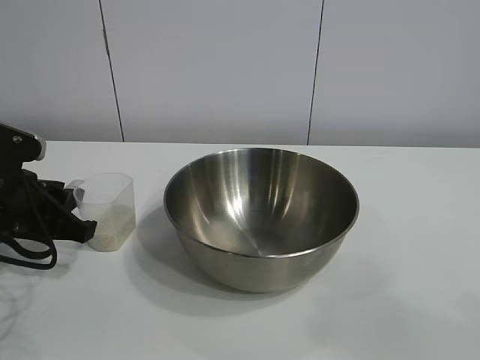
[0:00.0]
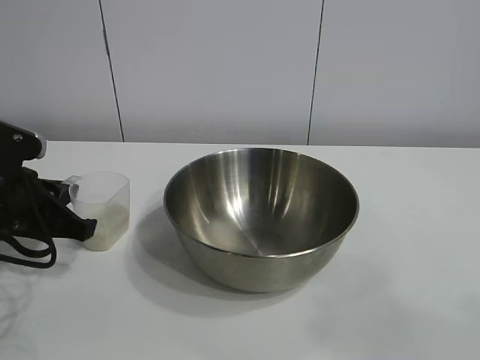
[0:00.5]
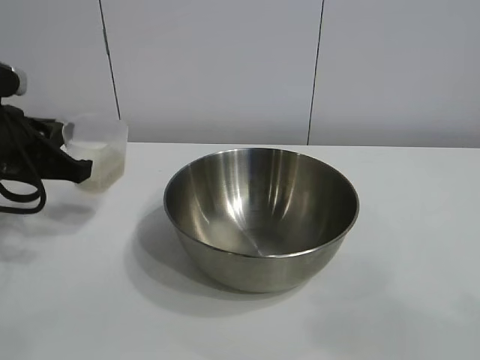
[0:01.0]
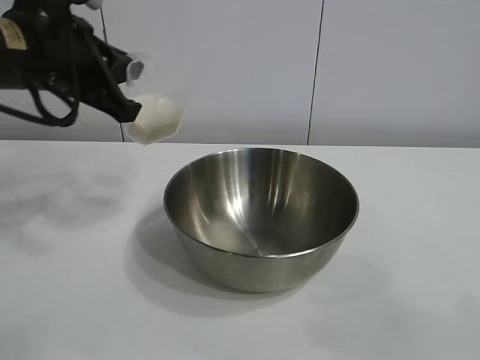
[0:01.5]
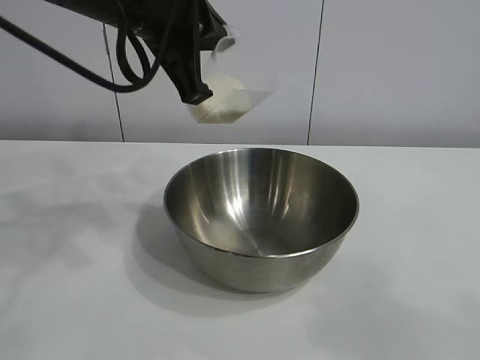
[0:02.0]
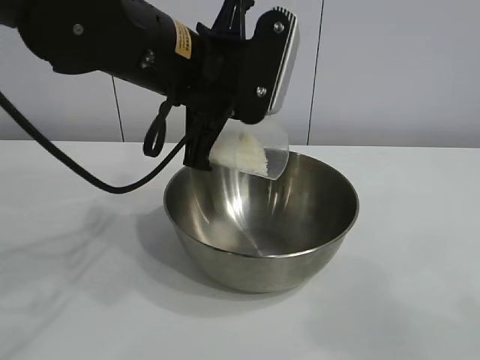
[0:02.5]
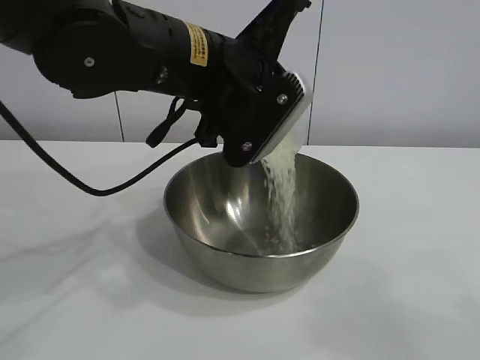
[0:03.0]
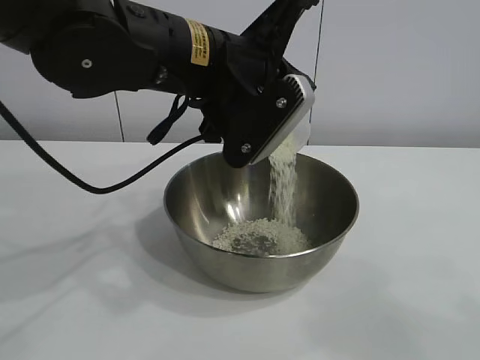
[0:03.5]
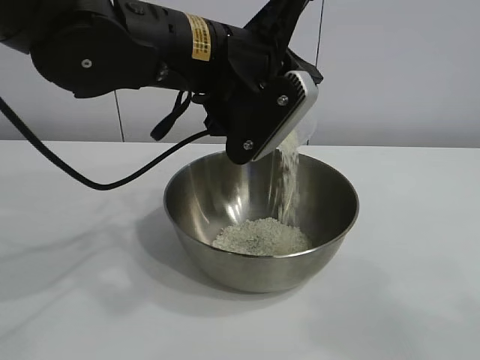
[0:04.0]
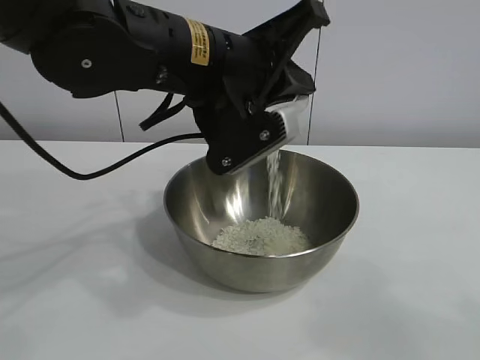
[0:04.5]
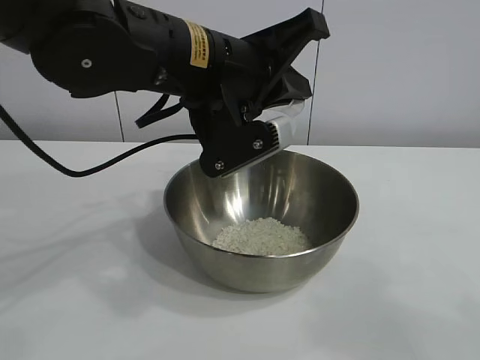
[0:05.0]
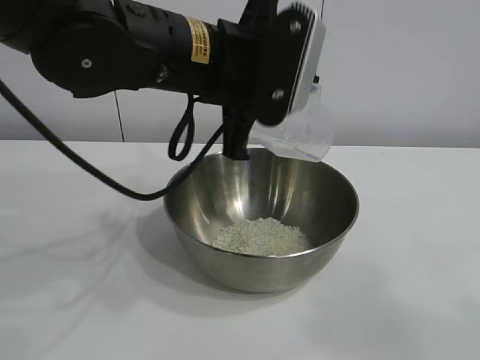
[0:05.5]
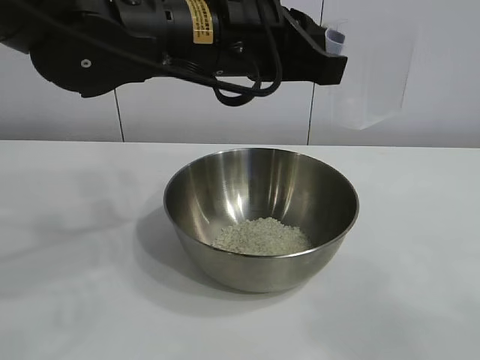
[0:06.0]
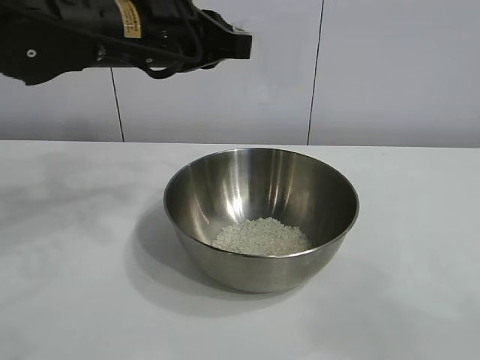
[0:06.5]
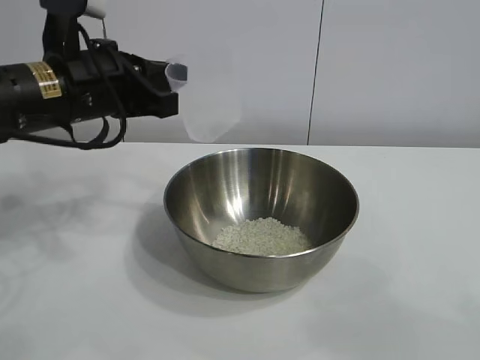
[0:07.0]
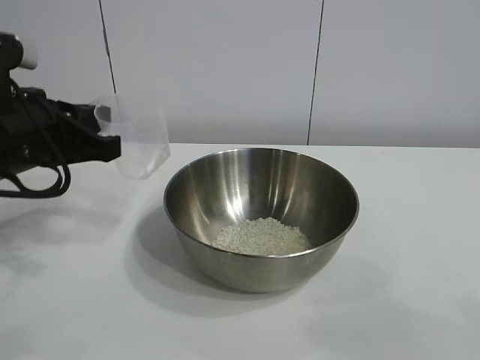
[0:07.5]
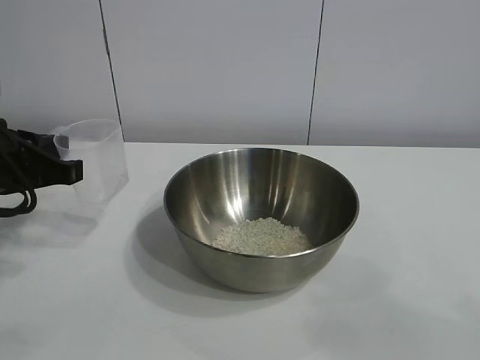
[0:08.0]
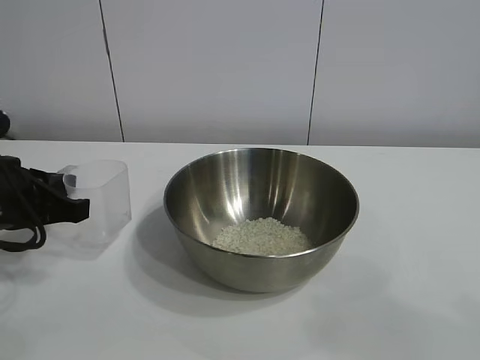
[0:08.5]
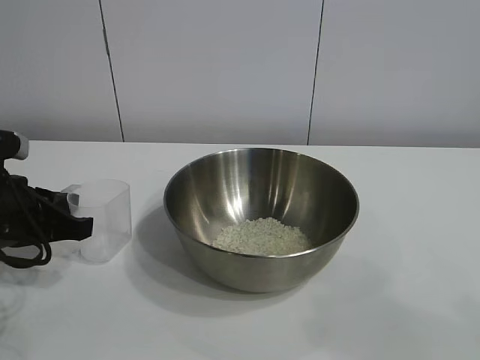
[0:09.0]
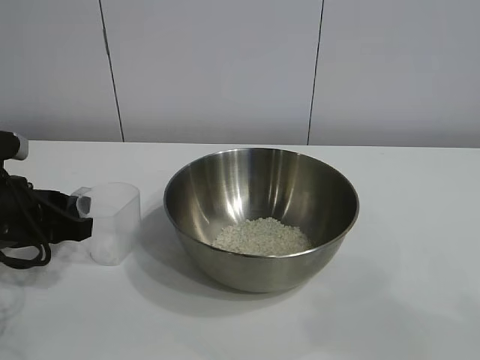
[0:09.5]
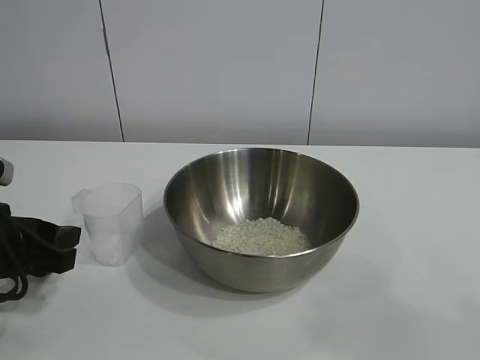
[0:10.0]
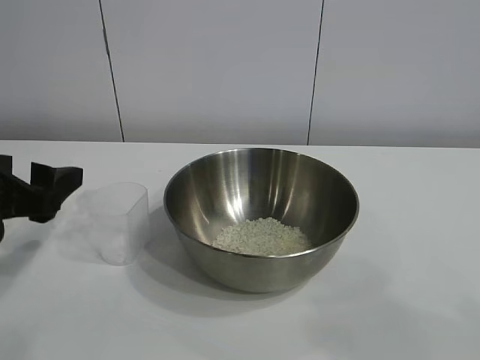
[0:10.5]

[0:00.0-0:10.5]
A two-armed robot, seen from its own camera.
Task of the whole recording: the right gripper grasp the rice container and place it in the center of the table, the left gripper grasp the rice scoop and pour the rice into the rice container.
Step, 0:01.0 to 0:05.0: Pour the rice from the cup into the bowl with the left gripper.
Step, 0:05.5 to 0:09.5: Place the cup on the table with the left gripper.

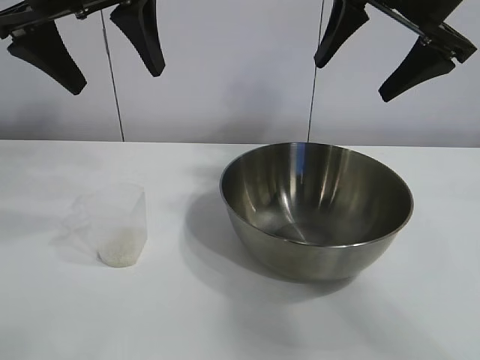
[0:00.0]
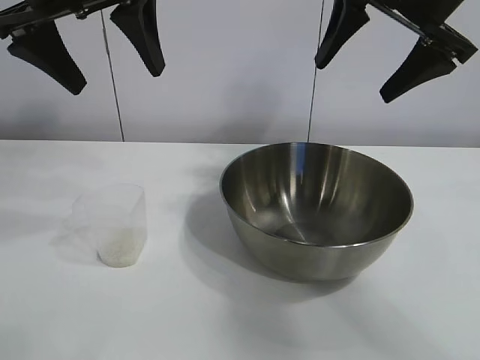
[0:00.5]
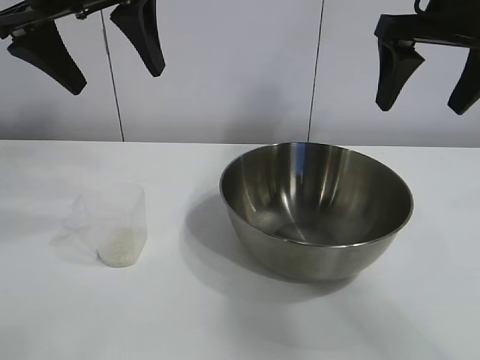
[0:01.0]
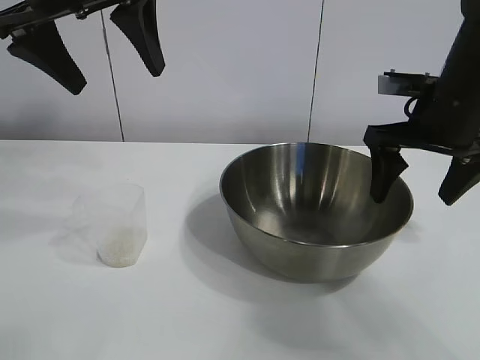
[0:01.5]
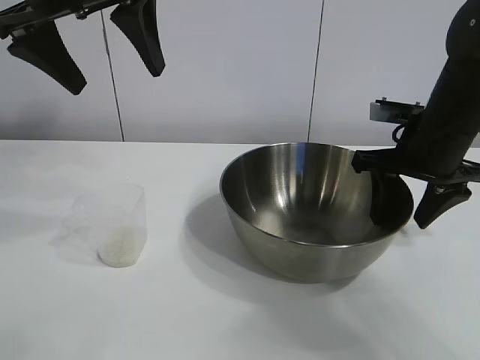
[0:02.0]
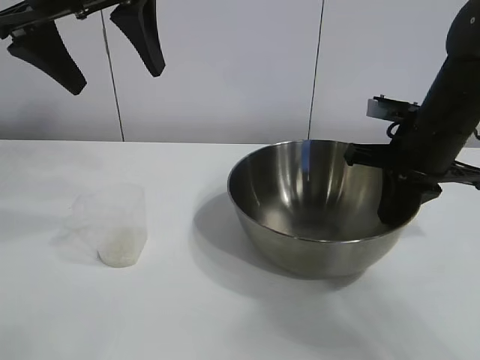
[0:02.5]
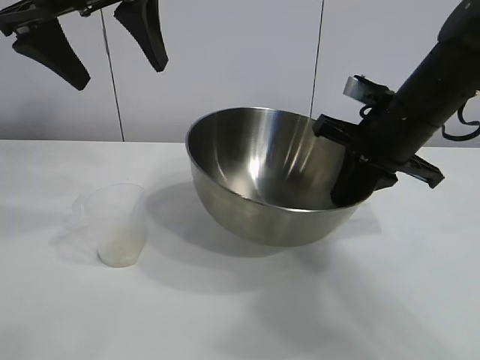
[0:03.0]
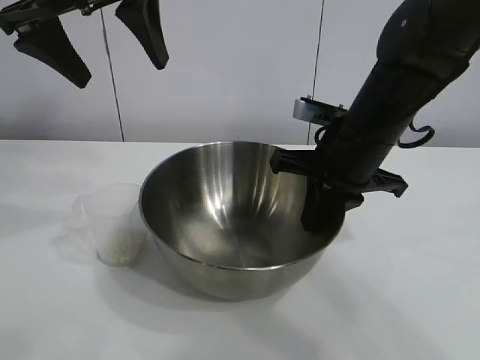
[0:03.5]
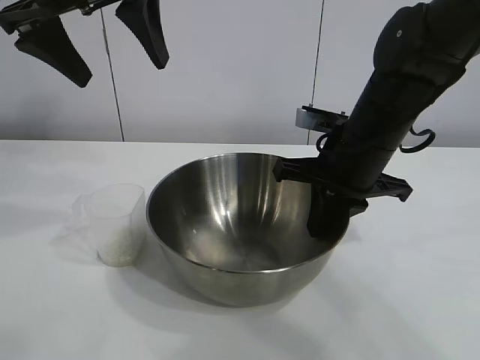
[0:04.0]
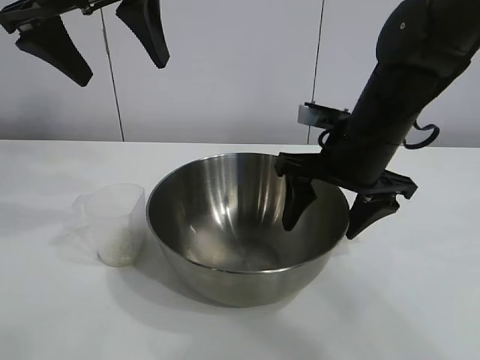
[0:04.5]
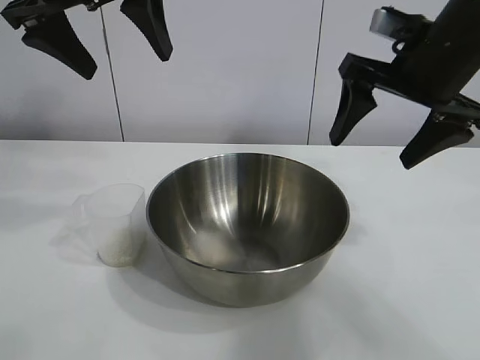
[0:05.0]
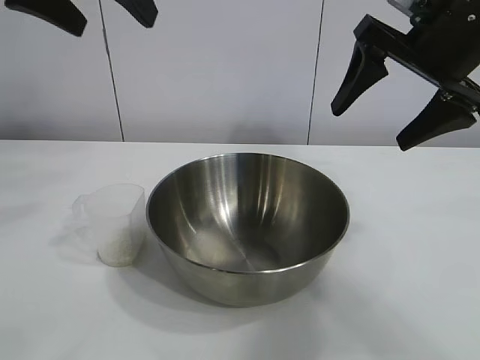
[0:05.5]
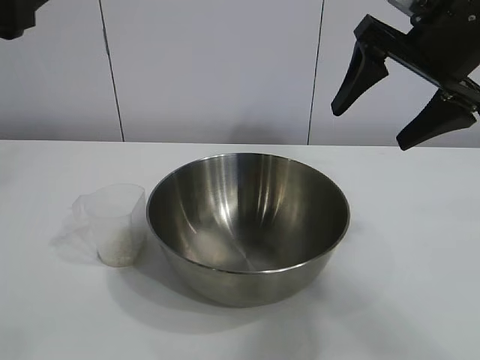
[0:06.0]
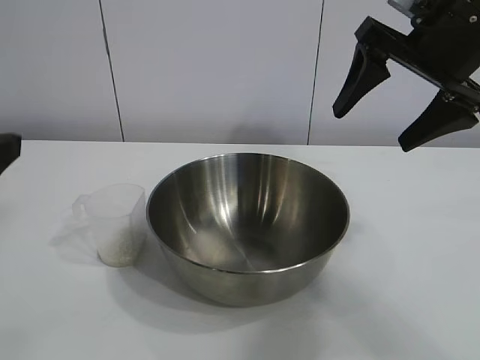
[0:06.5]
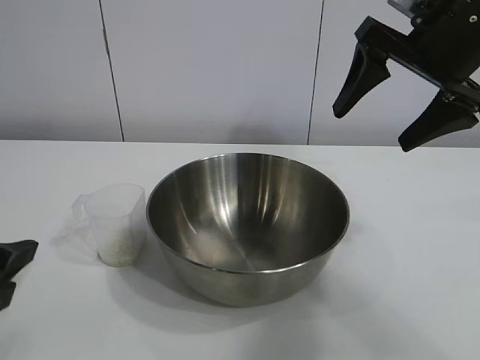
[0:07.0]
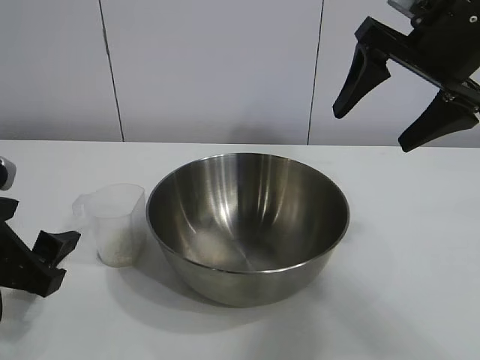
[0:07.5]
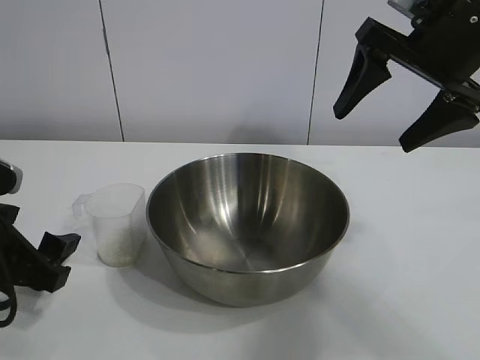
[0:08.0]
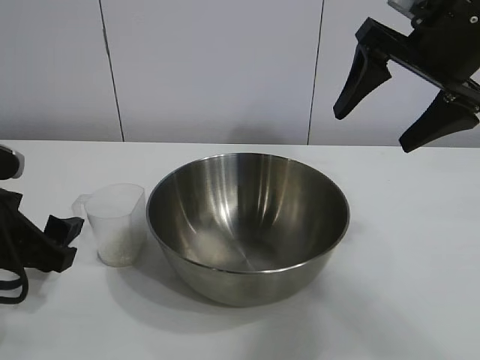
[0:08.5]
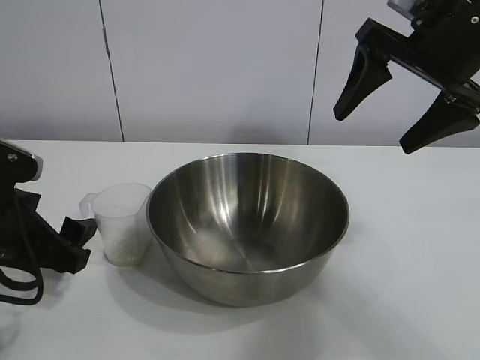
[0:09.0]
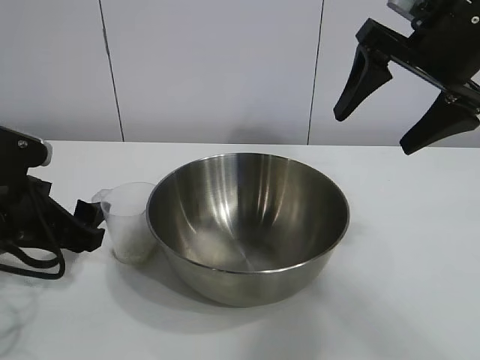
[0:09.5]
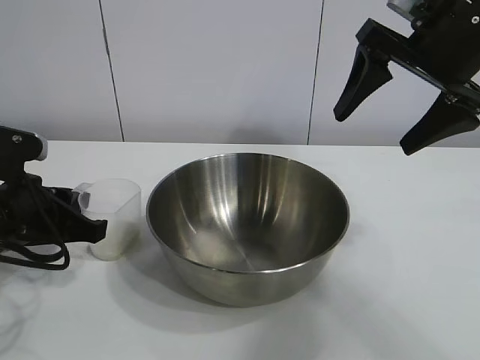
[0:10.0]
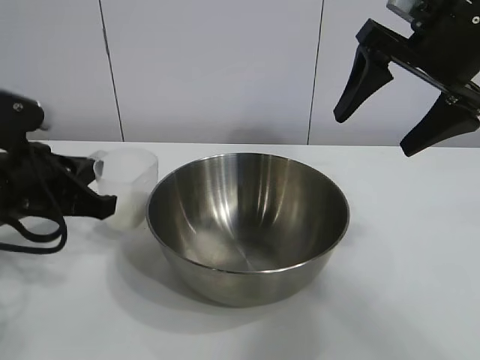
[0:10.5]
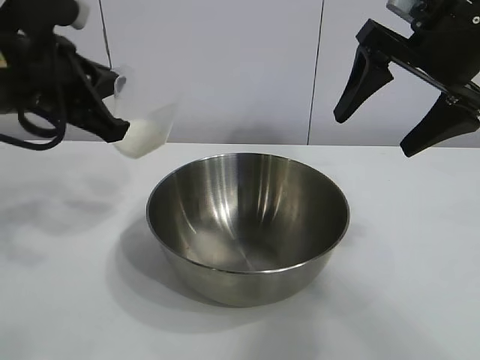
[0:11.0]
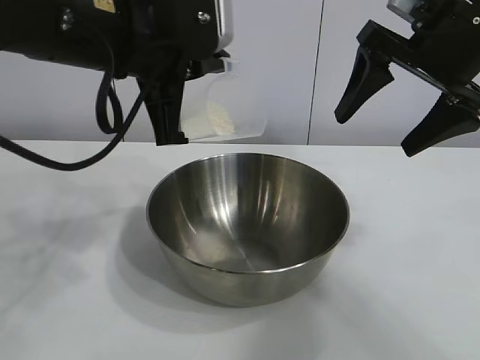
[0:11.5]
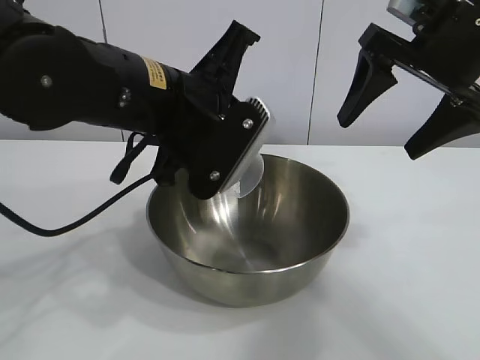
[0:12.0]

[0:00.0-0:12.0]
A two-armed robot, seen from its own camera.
Task of the whole recording: the right gripper grasp the rice container and place it in the center of the table, the left gripper grasp the rice scoop and pour the rice into the rice container.
Step, 0:01.0 to 0:04.0: Move the bowl in the center of view with right gripper.
Step, 0:05.0 to 0:10.0: Grasp the cup with rice in it with left gripper.
